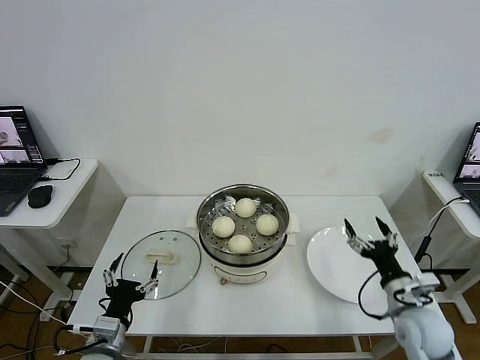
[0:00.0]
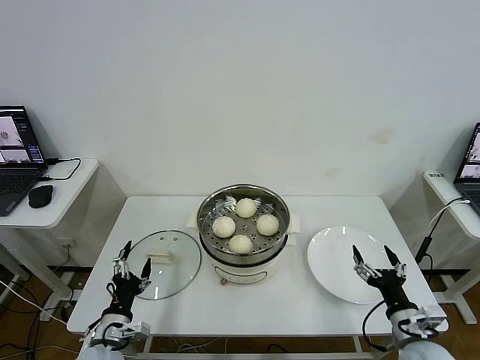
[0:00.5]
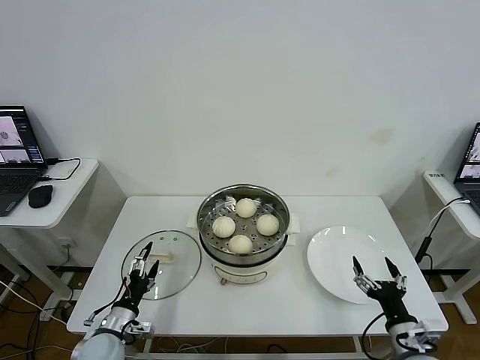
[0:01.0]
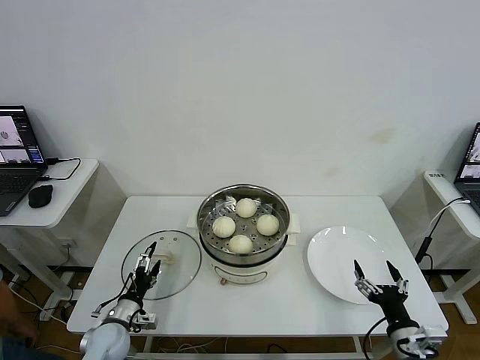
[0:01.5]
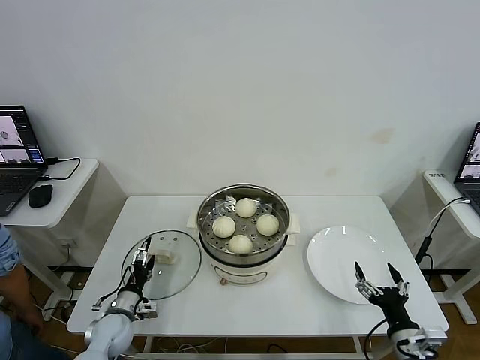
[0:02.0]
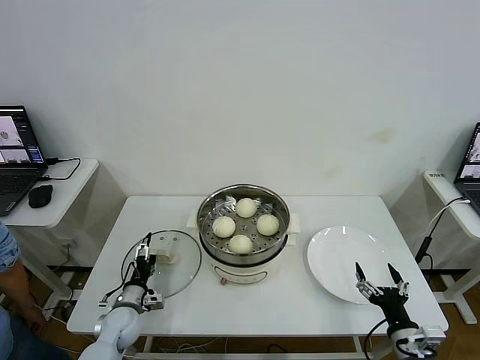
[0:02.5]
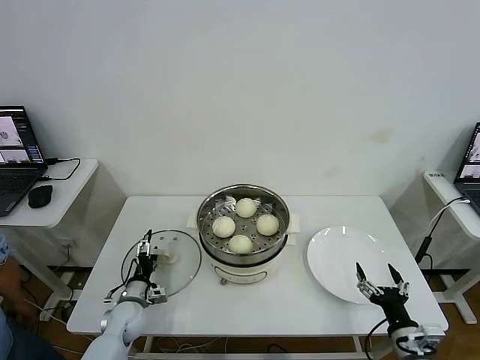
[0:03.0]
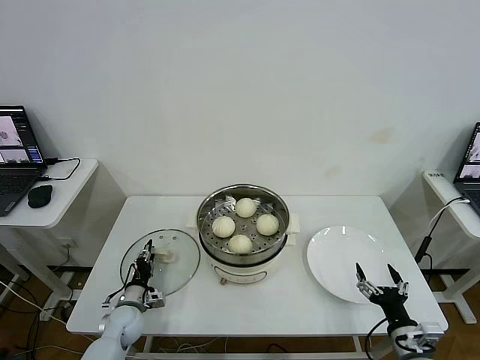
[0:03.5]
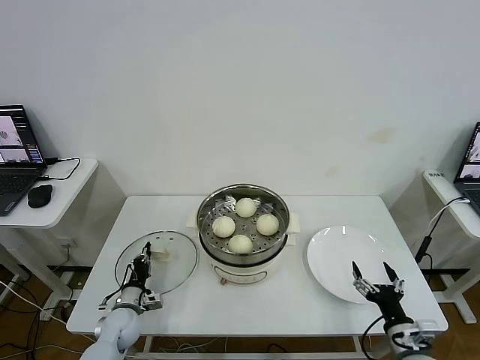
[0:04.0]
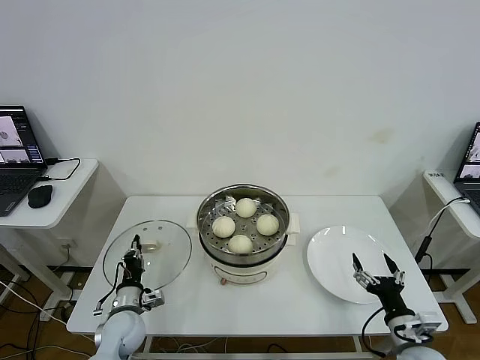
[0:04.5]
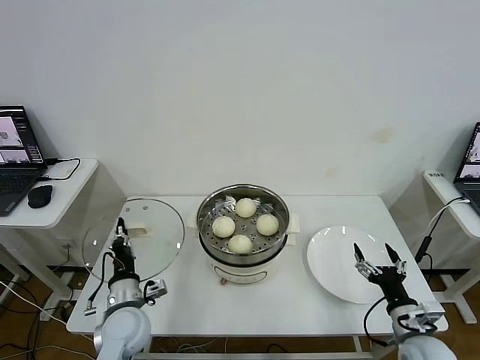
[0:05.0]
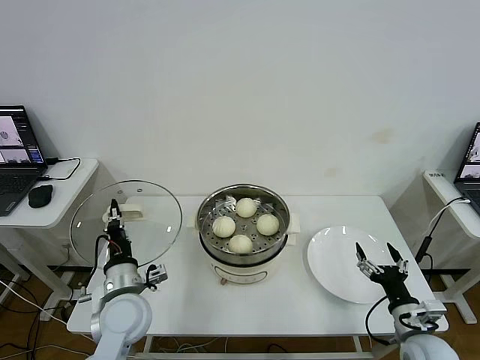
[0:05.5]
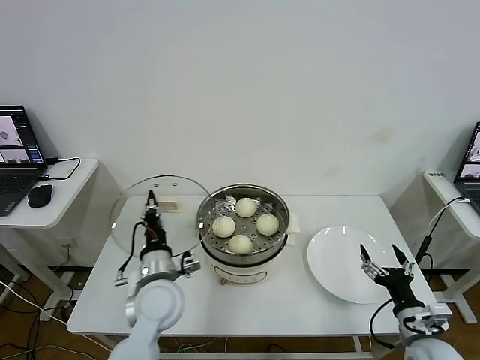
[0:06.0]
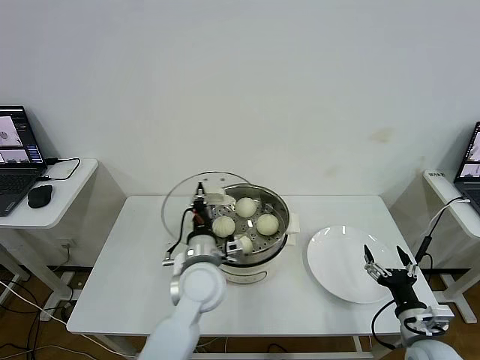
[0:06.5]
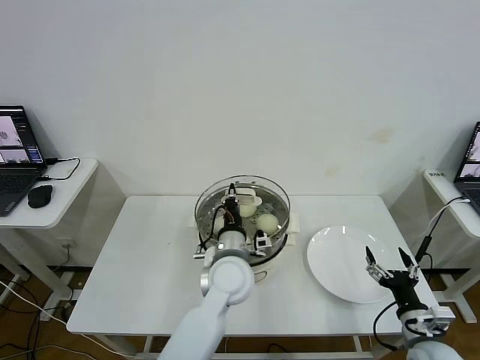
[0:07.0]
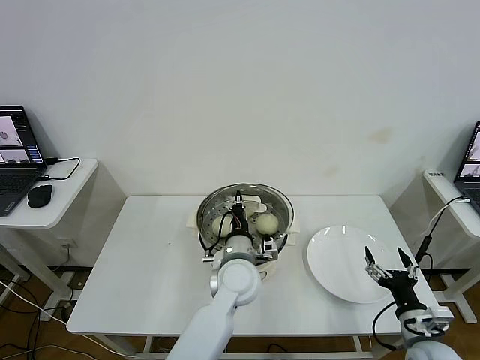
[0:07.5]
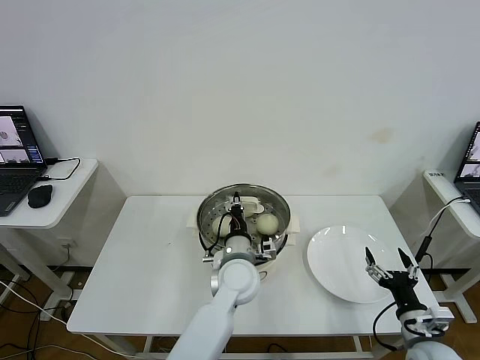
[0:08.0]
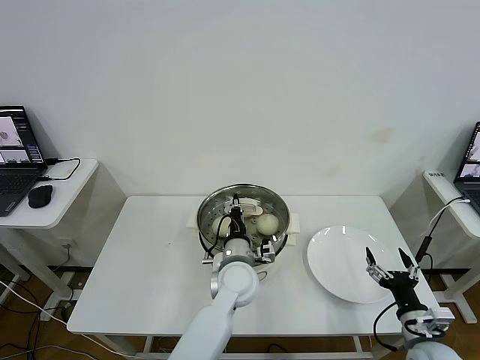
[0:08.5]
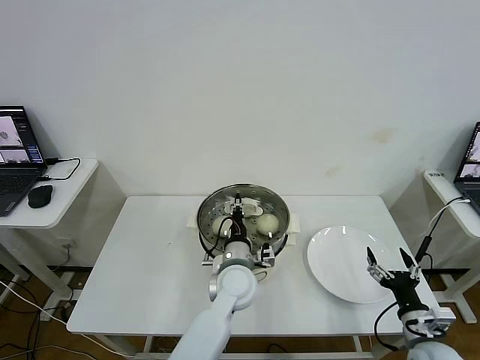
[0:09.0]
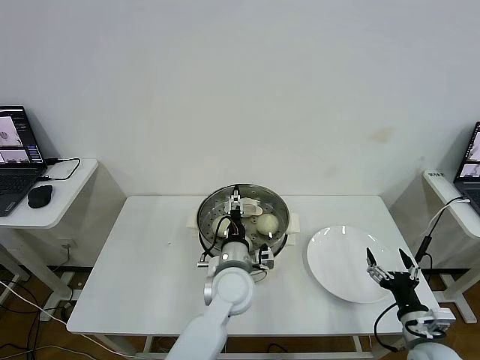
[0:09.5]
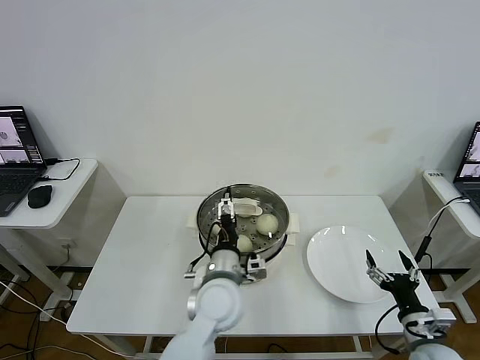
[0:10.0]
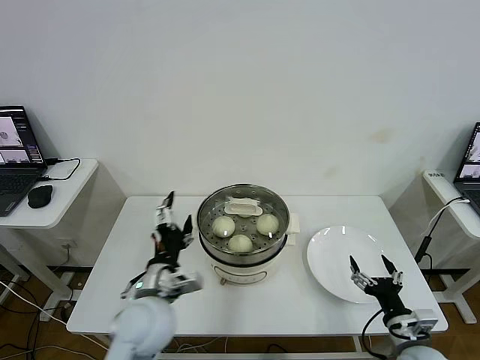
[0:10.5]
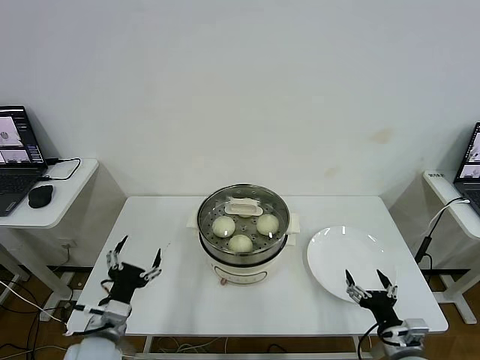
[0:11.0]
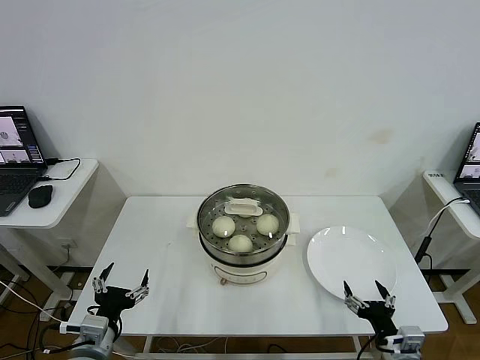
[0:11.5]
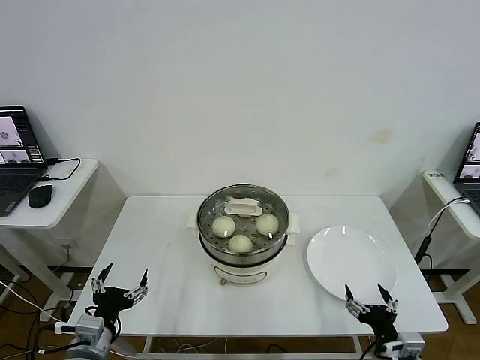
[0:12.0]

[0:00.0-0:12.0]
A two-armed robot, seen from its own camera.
Step, 0:00.0 to 0:03.5: Grasp the pot lid with left gripper.
Step, 0:04.0 to 0:09.5: Place the pot lid on the steamer with left gripper.
0:00.0 to 0:02.0: The left gripper is displaced forward and downward by approximately 15 cm. The right gripper shifts about 10 cm backward.
0:02.0 to 0:04.0: The left gripper closes.
0:04.0 to 0:06.0: The left gripper moves upward and to the right, roughly 25 cm.
0:06.0 to 0:08.0: The left gripper heads to the right, covering some 15 cm.
0:08.0 to 0:10.0: The left gripper heads backward, covering approximately 5 cm, and opens its fingers.
0:10.0 to 0:12.0: The left gripper travels to the left and backward by approximately 30 cm. Meanwhile the right gripper shifts some 5 cm to the left.
